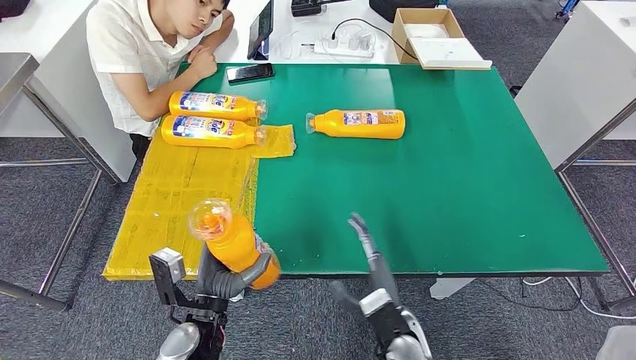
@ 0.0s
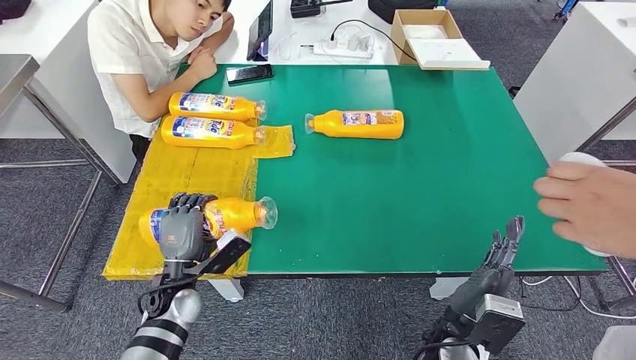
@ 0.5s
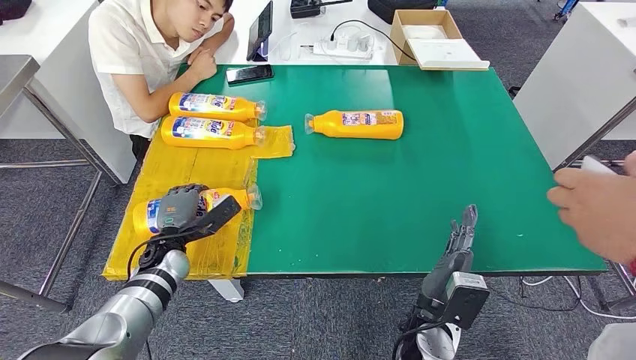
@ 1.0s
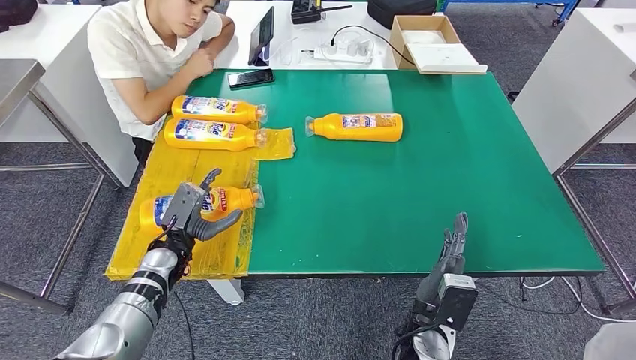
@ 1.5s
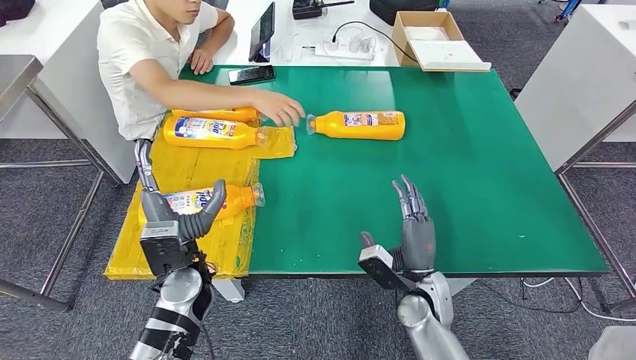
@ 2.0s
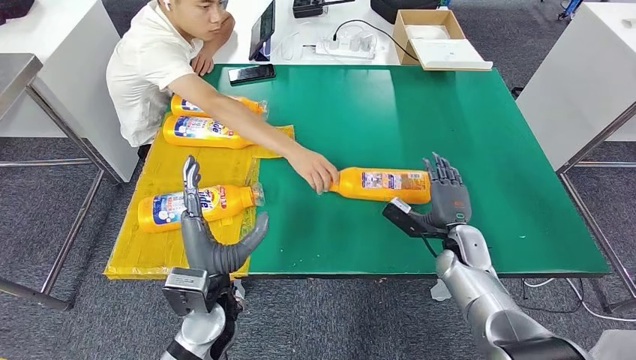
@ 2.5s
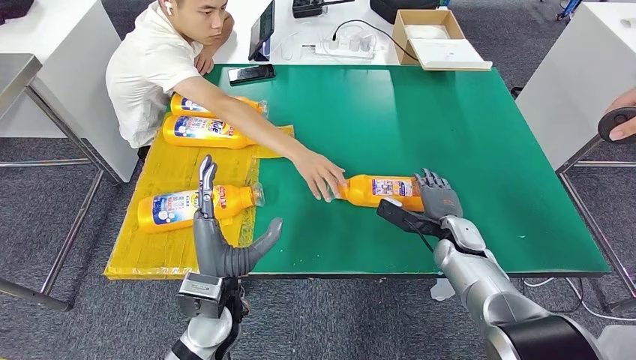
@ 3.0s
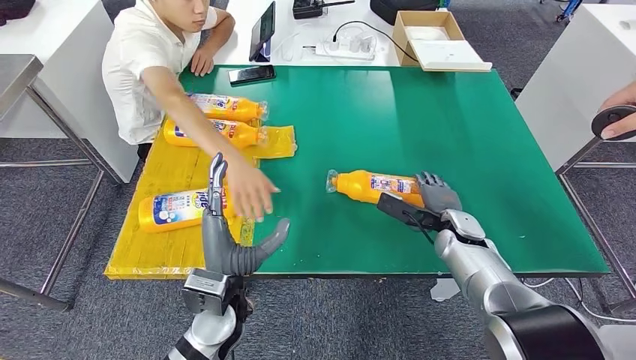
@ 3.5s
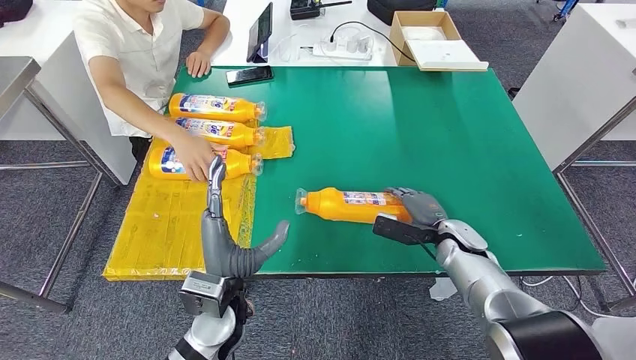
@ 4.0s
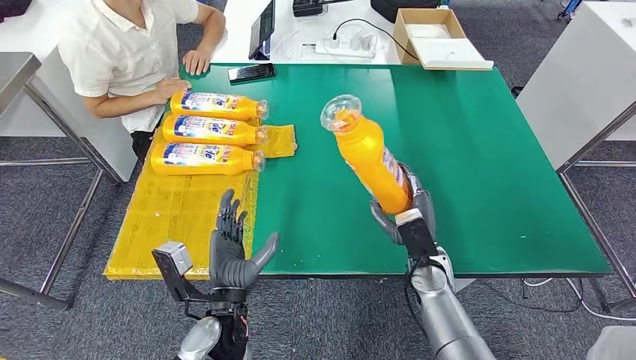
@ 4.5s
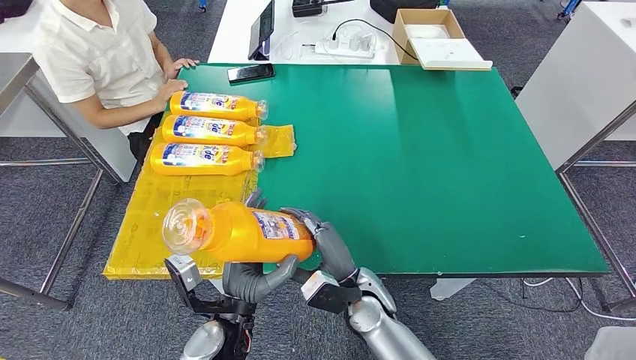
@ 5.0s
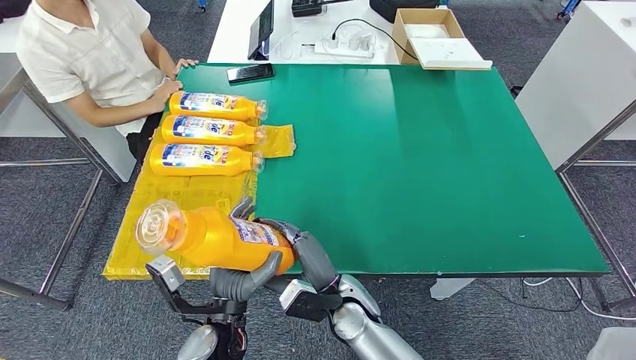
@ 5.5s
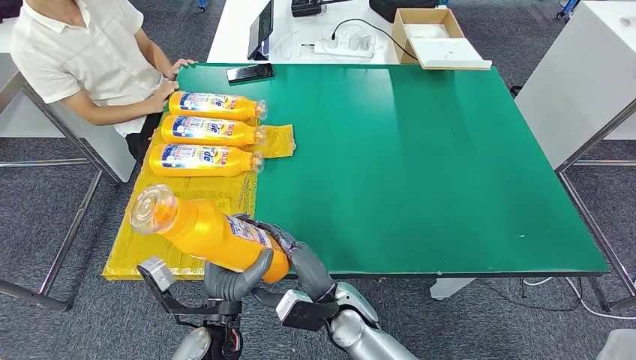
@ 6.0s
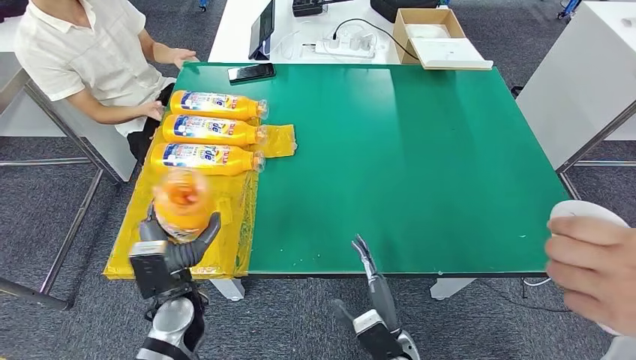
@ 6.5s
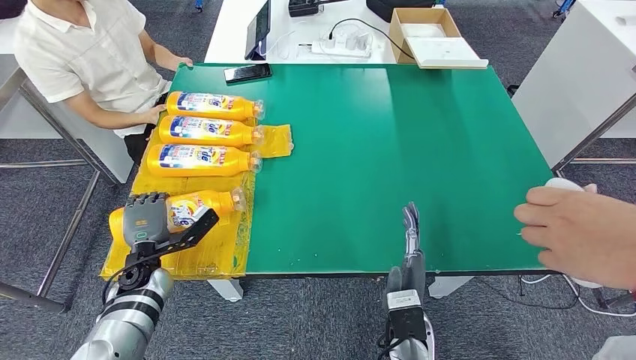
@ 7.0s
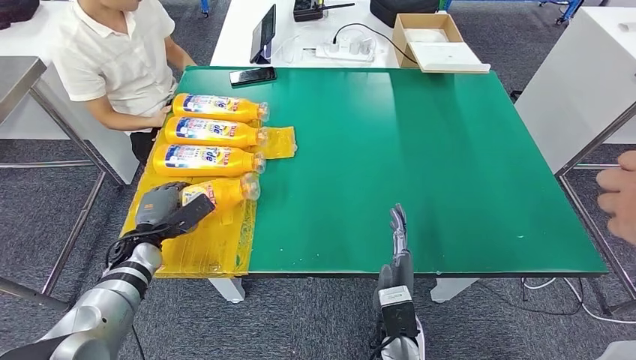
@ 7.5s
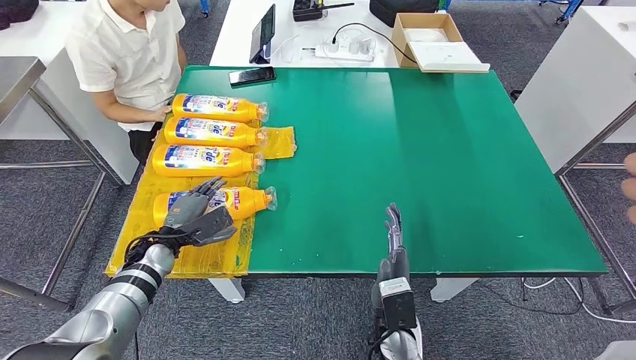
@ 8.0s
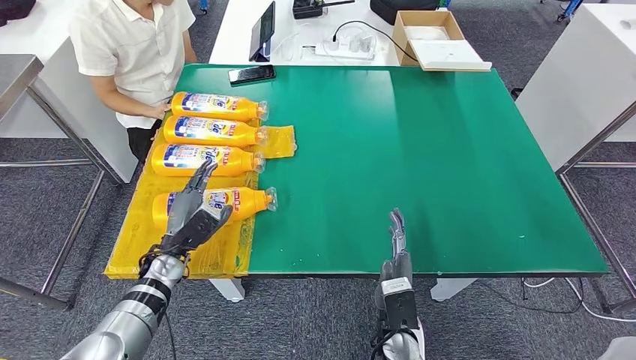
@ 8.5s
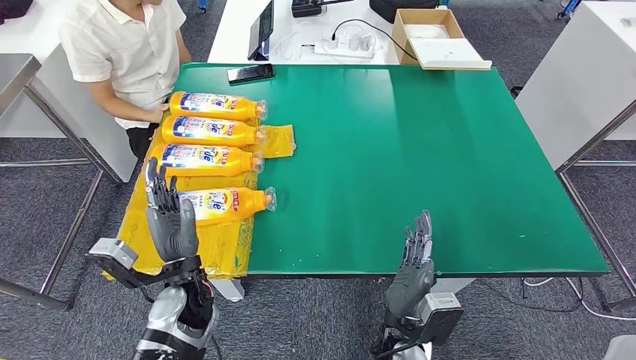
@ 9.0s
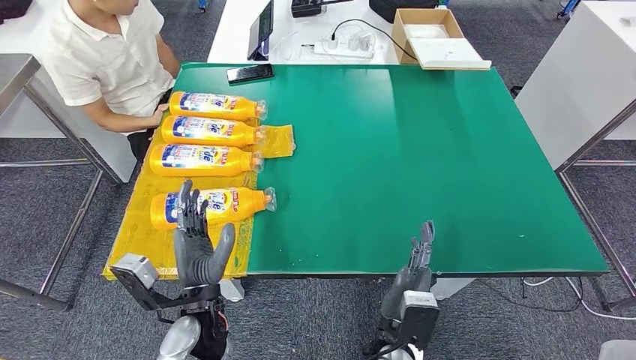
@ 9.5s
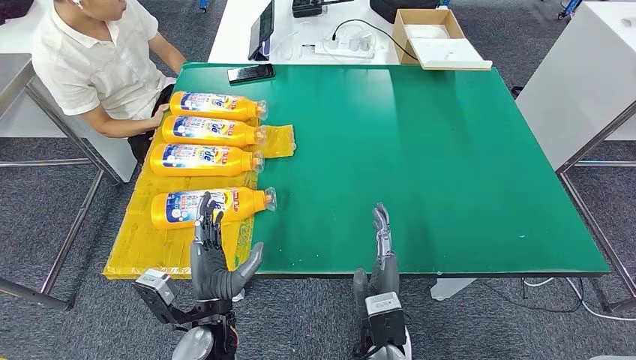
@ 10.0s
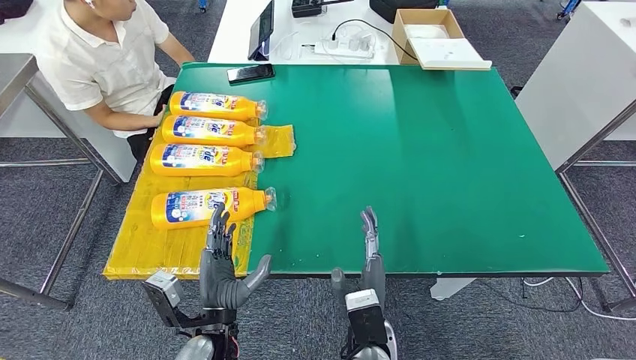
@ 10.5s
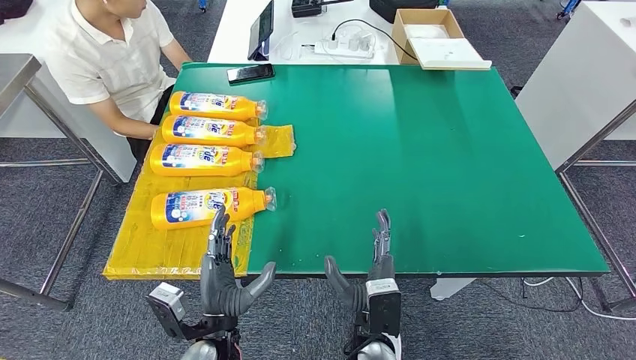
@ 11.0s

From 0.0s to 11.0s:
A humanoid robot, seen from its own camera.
Step, from 0.5s to 3.5s: Flip the bottle to face forward.
Step, from 4.0s to 6.0s: Pick up the bottle from the table.
Step, from 6.5s to 11.0s: Flip the bottle to face forward.
From 9.0s to 11.0s: The left hand shifts about 10 cm backward.

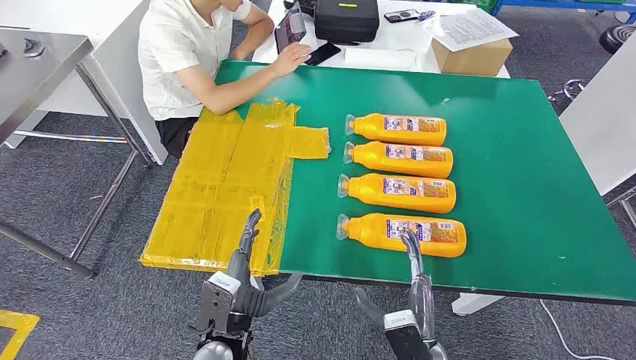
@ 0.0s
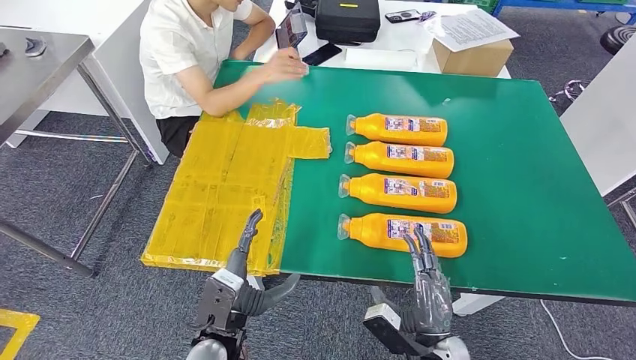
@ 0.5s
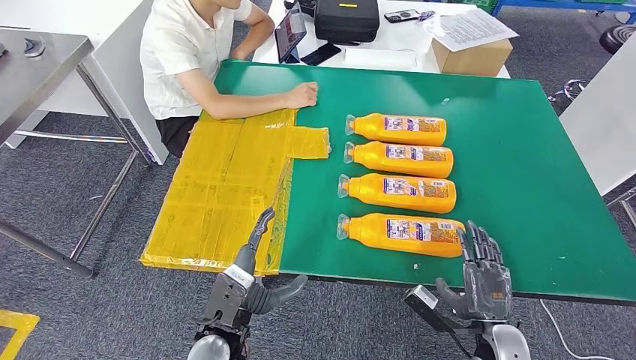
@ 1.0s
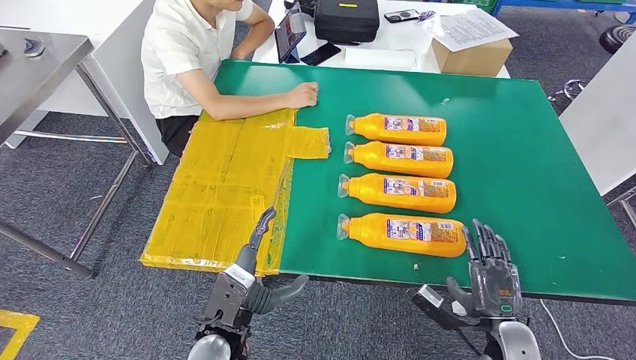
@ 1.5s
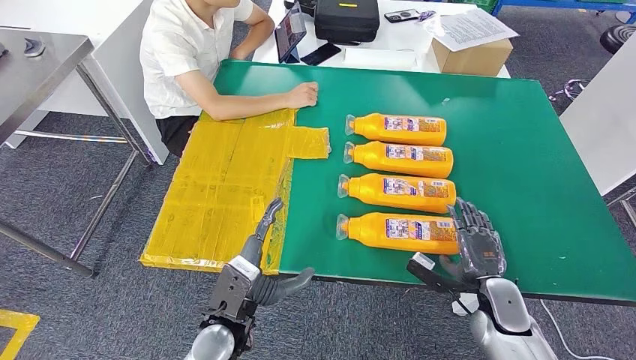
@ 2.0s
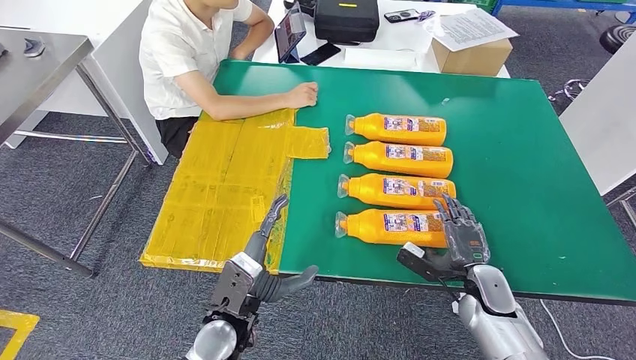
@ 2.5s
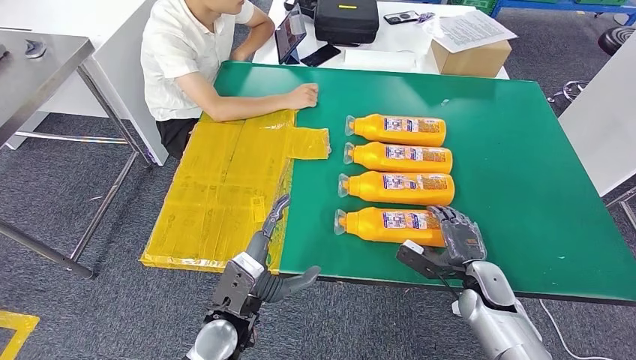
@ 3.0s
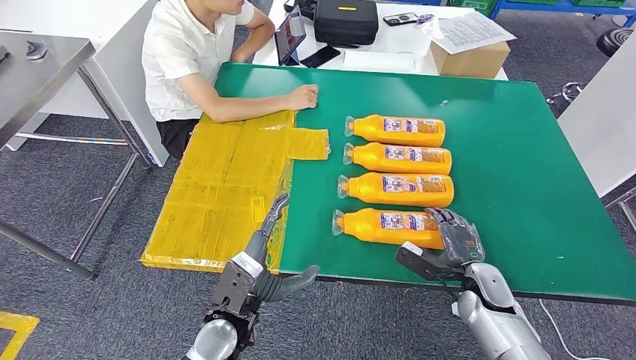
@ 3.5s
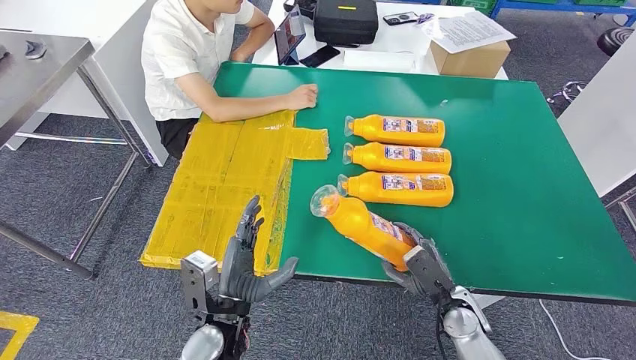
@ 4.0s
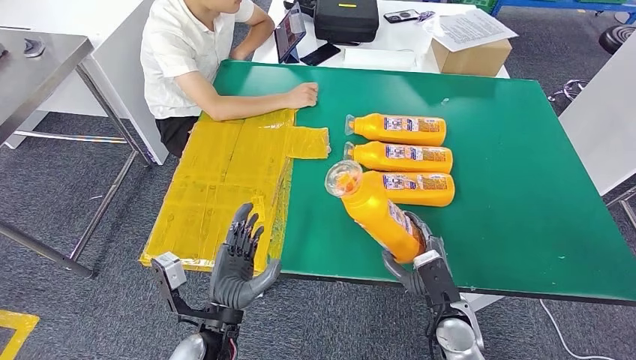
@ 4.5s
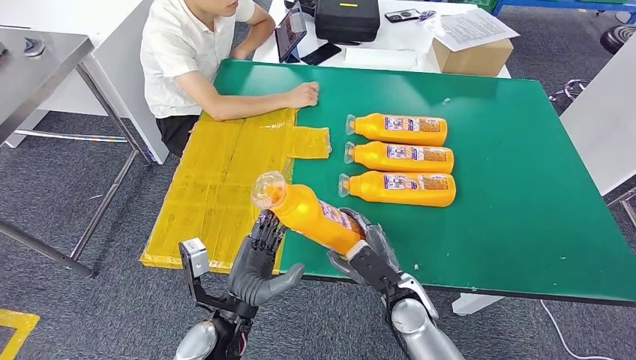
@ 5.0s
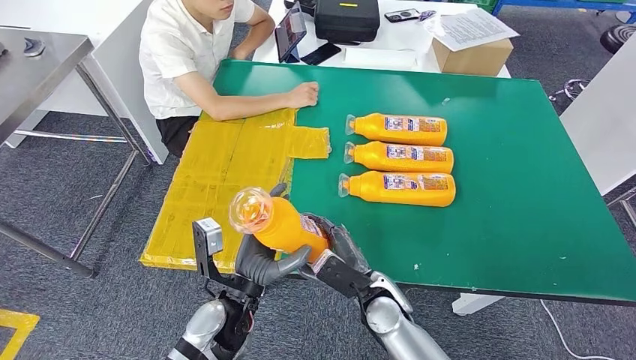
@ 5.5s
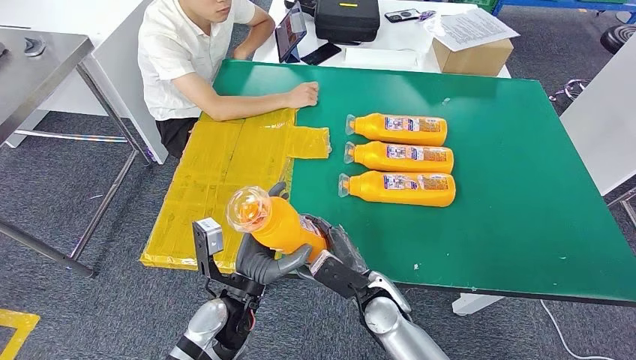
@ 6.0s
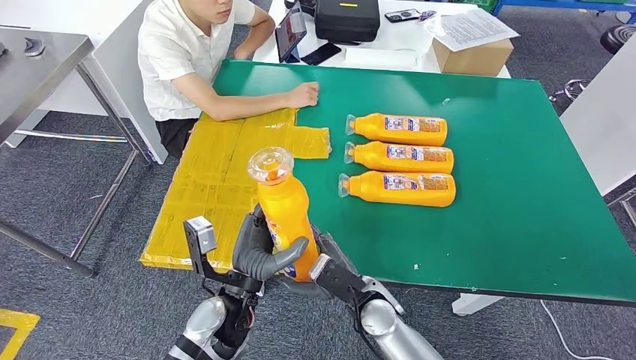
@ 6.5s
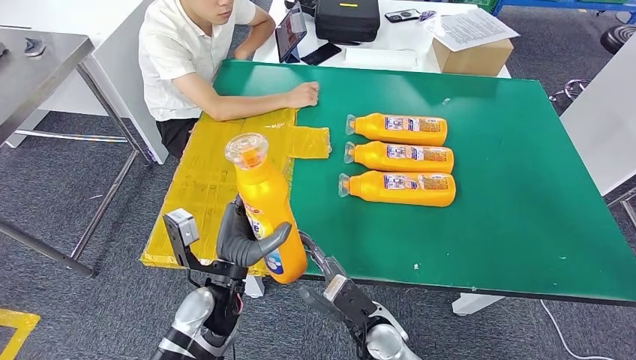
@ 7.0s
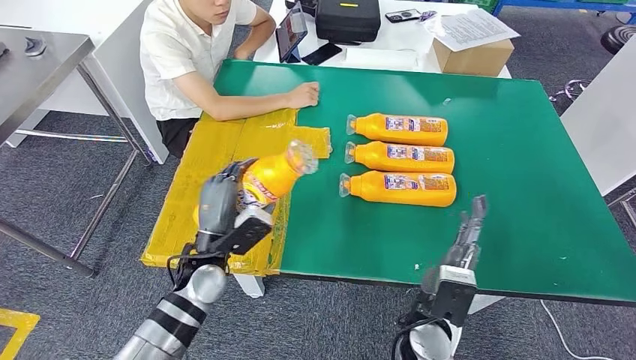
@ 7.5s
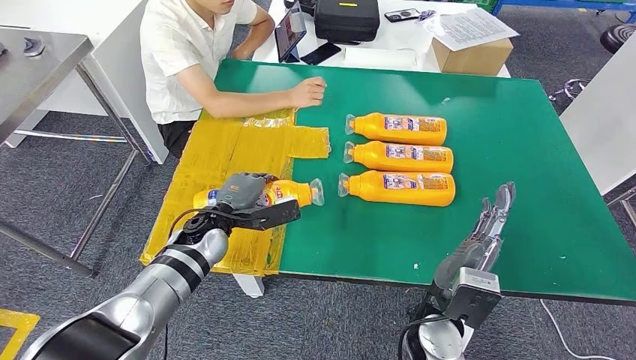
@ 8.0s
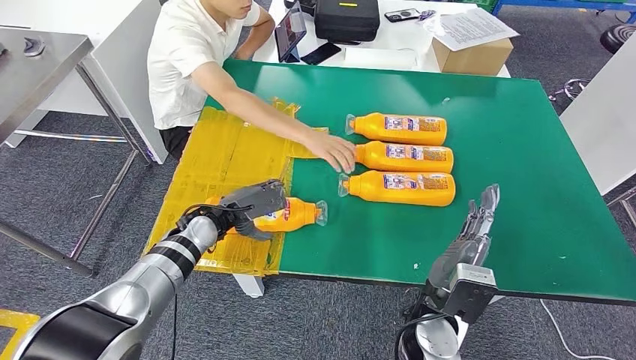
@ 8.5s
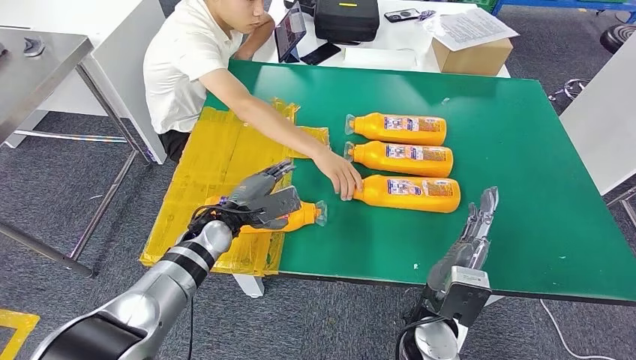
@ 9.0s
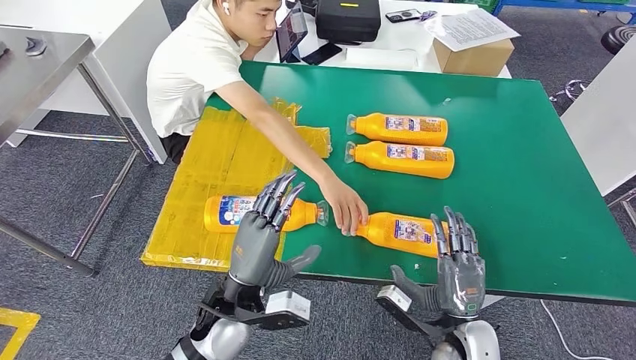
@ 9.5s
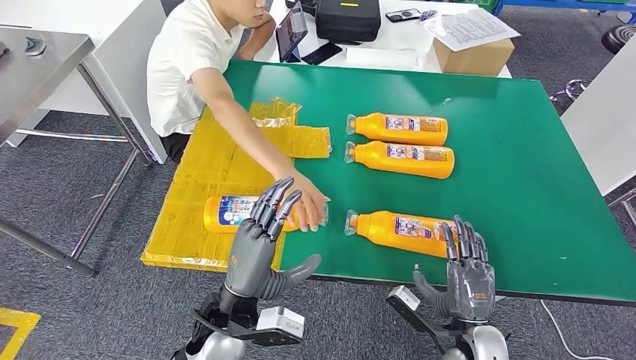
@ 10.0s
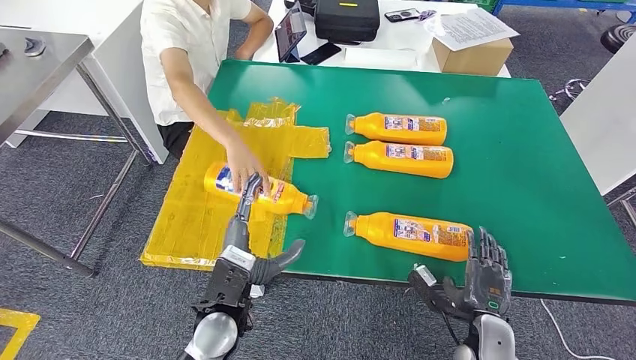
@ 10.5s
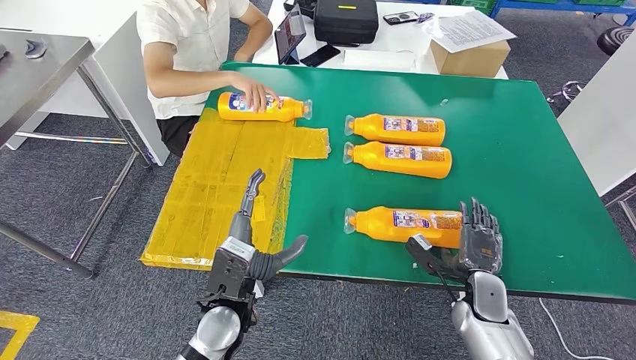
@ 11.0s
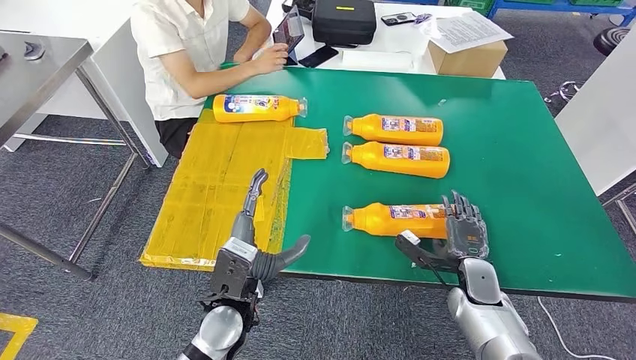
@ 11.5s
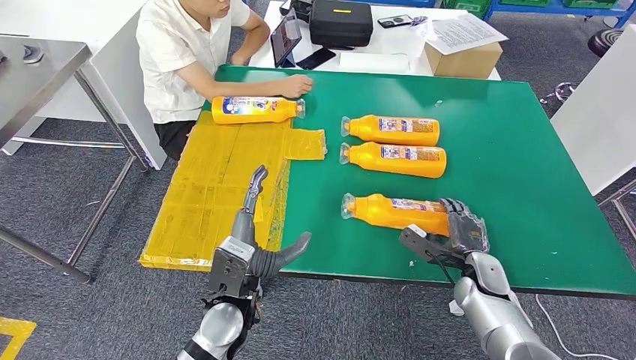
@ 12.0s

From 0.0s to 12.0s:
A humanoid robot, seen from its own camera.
Step, from 0.0s to 5.5s: Take the bottle from the table.
Step, from 6.0s to 9.0s: Flip the bottle to face forward.
From 4.0s to 6.0s: The right hand travels to the left by about 20 cm.
From 6.0s to 8.0s: The left hand goes some 15 cm forward and to the left. Meanwhile the right hand travels to the right and upward by some 10 cm.
